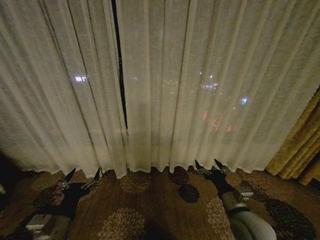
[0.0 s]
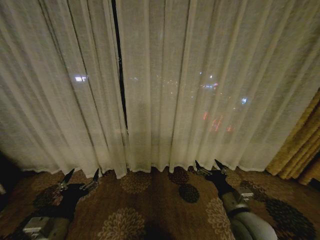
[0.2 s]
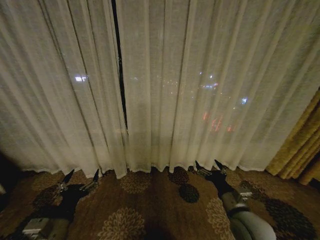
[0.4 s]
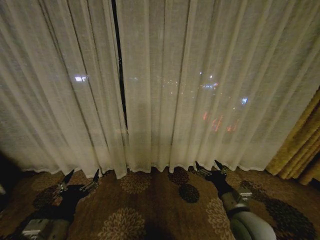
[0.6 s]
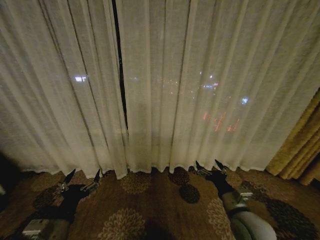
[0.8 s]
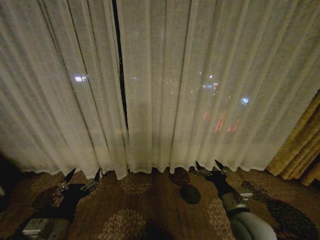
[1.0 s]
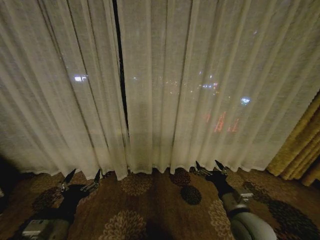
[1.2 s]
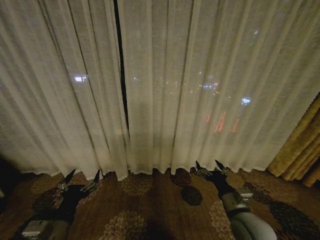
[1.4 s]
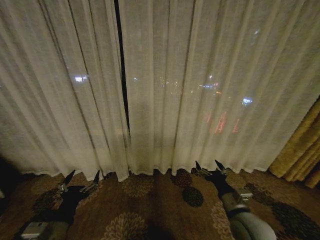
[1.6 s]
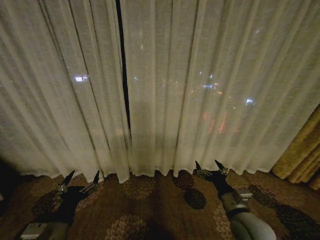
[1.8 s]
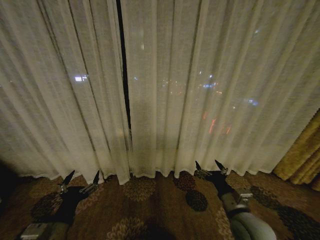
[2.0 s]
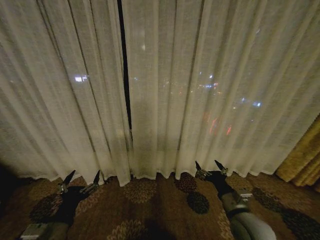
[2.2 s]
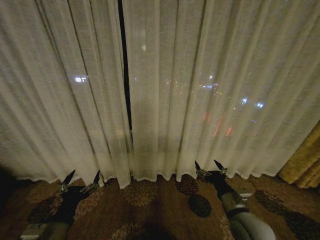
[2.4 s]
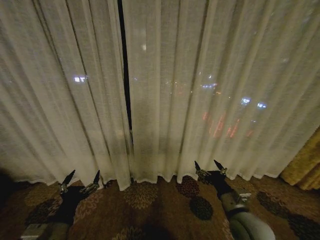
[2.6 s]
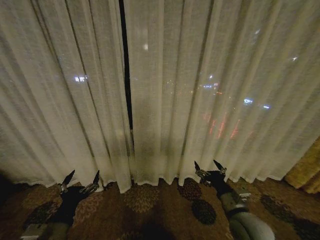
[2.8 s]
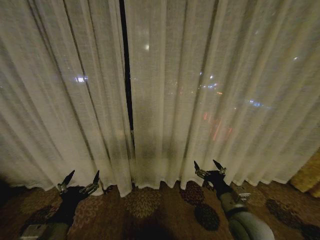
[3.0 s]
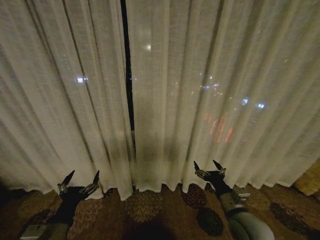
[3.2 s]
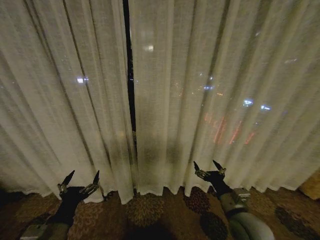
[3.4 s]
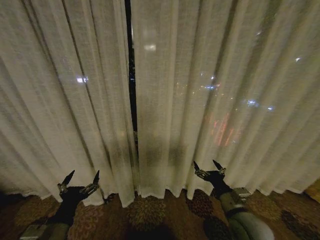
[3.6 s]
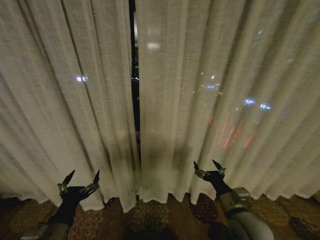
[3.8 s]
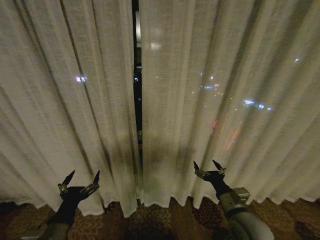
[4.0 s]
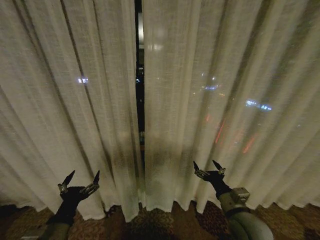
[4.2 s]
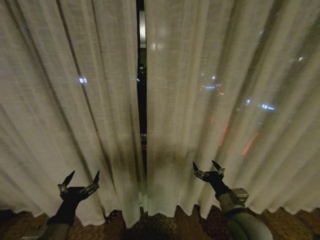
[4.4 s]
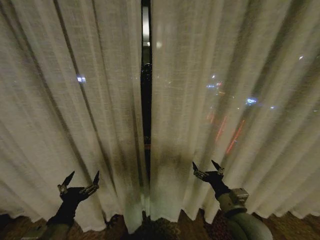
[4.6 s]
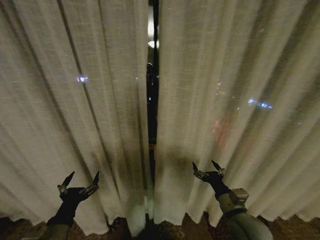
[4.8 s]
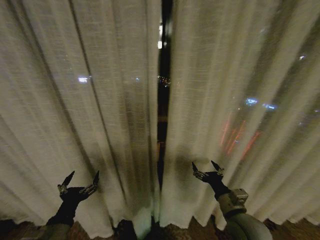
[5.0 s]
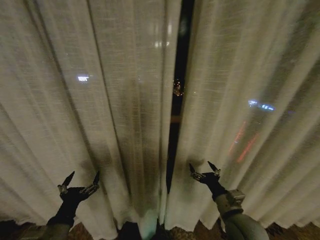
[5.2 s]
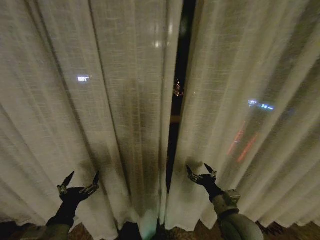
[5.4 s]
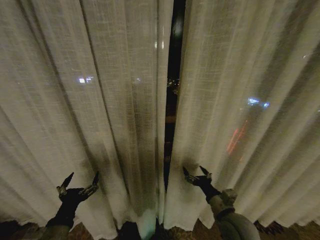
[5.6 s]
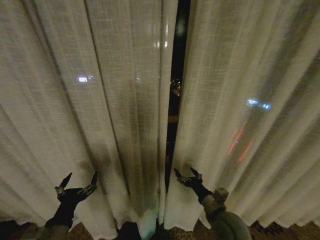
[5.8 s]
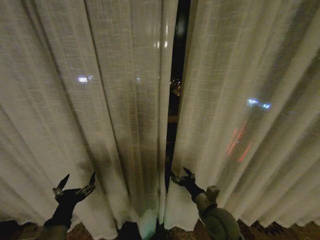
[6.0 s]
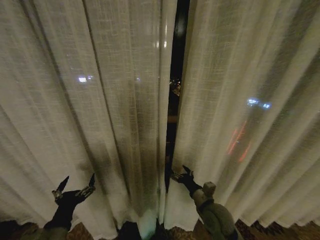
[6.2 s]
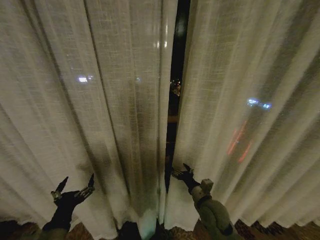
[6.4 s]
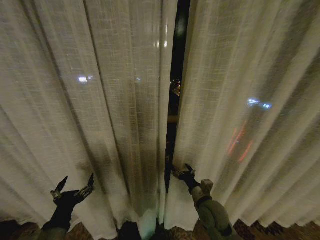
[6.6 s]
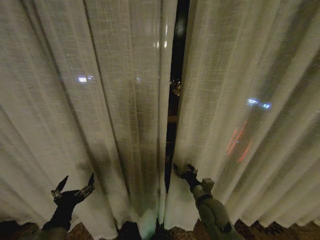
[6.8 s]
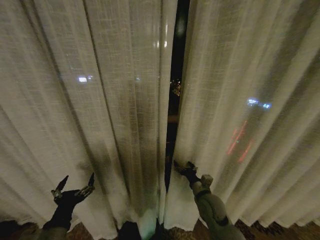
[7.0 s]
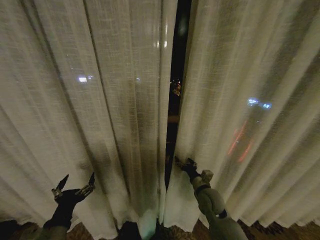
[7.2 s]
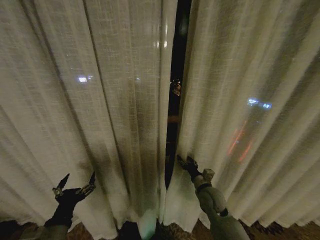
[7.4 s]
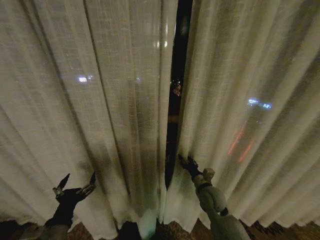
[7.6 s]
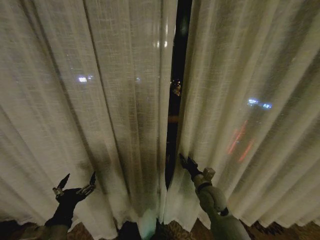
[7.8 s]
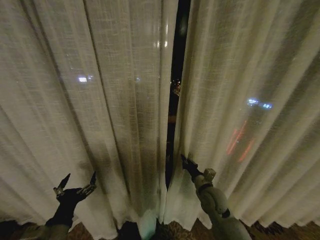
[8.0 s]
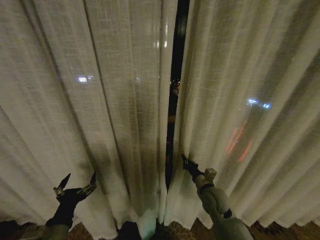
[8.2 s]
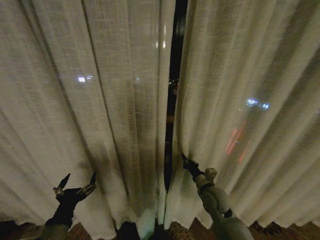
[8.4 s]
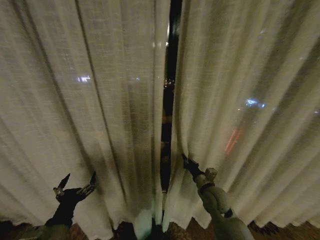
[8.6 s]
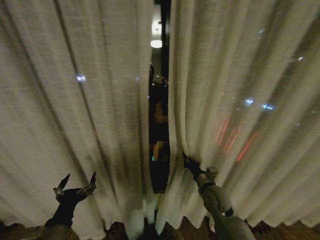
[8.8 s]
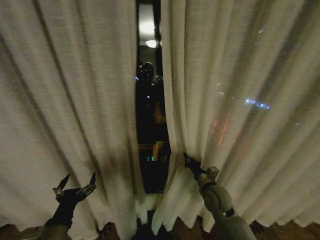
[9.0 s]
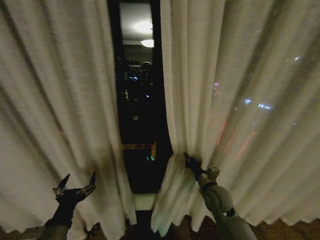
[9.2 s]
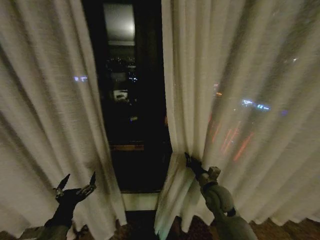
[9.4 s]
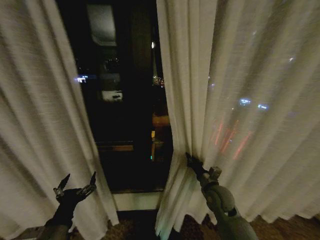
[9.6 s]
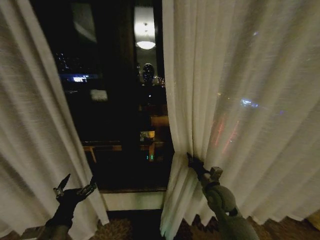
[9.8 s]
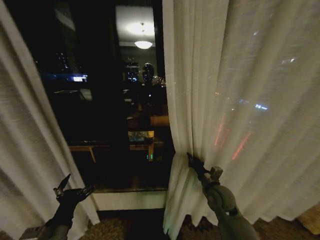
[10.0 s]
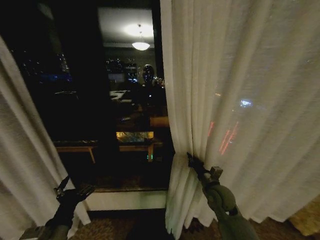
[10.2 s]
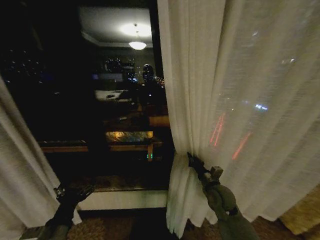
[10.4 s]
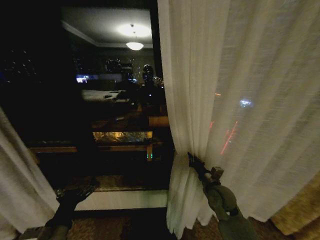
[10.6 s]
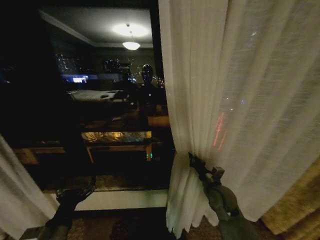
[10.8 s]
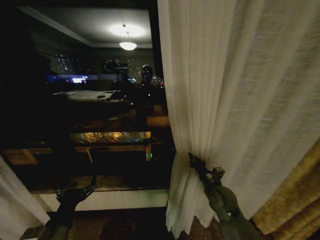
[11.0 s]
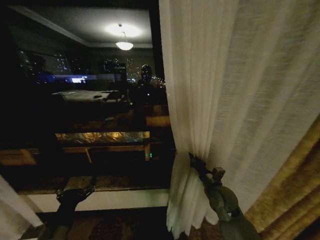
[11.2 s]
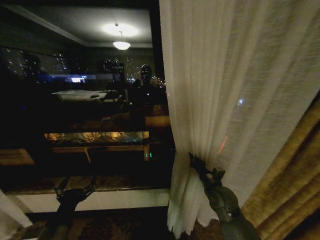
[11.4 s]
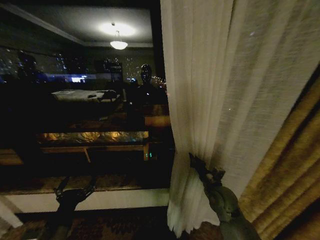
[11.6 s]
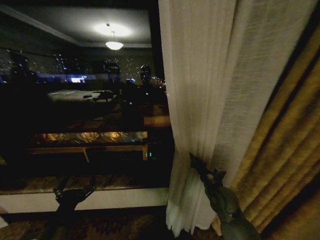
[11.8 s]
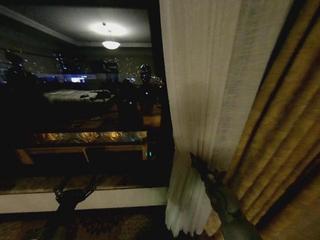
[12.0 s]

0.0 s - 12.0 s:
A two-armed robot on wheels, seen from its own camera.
Task of the whole recording: Open the curtains by pulling them apart, changing their state from closed to fully open.
1.6 s - 3.0 s: Both grippers stay put.
4.4 s - 6.0 s: The right gripper shifts by approximately 5 cm.
6.0 s - 7.6 s: The right gripper goes roughly 10 cm forward, and closes up.
7.6 s - 9.0 s: The right gripper closes.

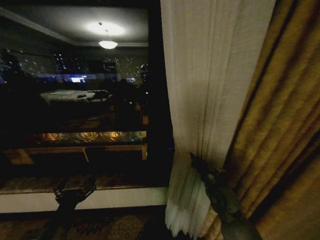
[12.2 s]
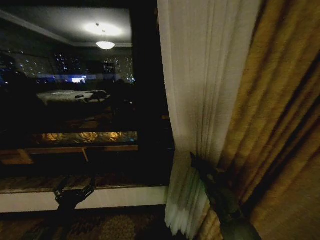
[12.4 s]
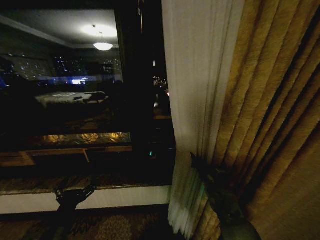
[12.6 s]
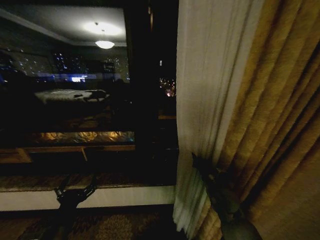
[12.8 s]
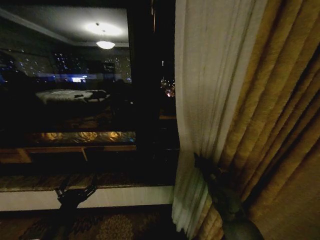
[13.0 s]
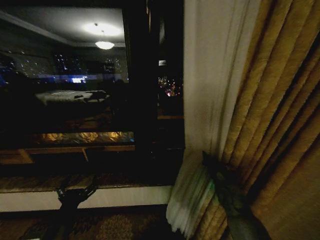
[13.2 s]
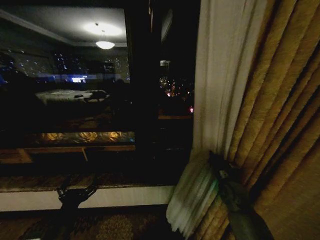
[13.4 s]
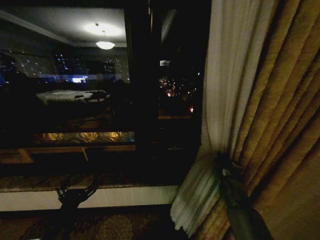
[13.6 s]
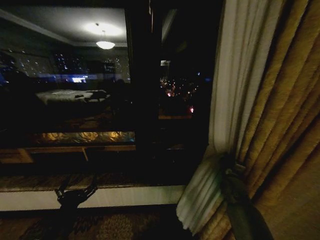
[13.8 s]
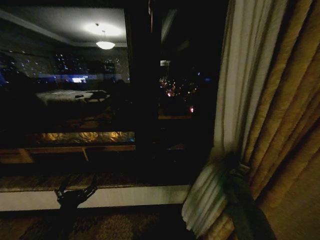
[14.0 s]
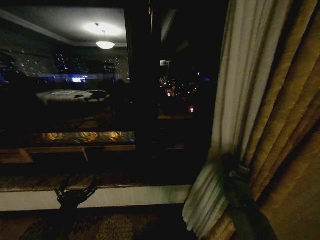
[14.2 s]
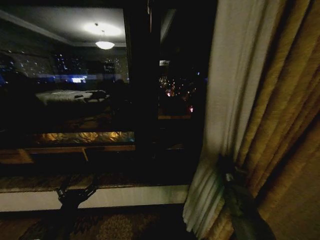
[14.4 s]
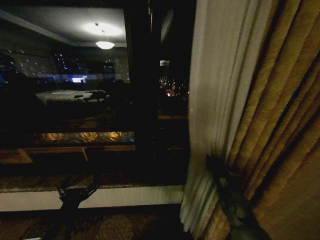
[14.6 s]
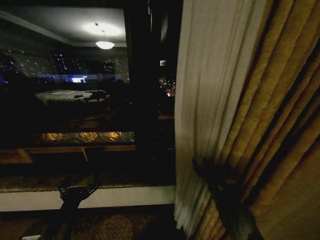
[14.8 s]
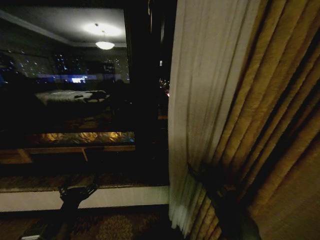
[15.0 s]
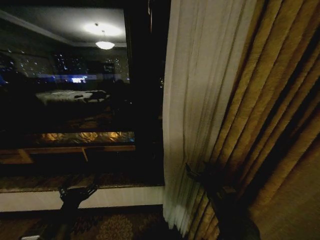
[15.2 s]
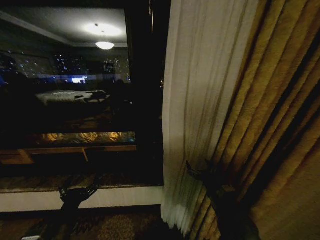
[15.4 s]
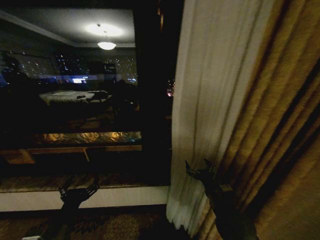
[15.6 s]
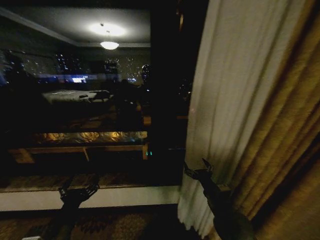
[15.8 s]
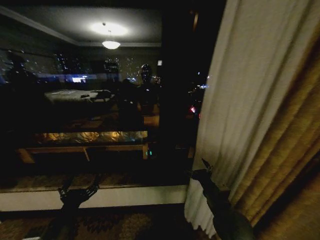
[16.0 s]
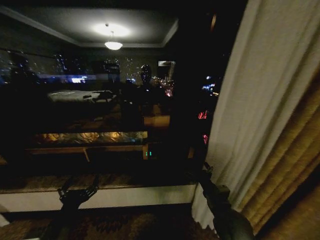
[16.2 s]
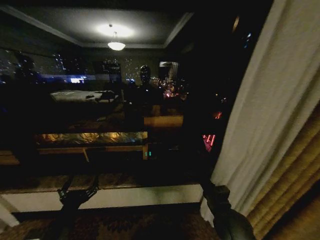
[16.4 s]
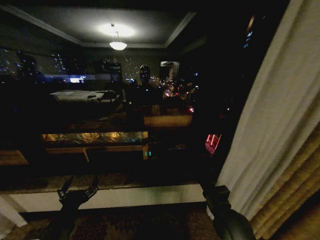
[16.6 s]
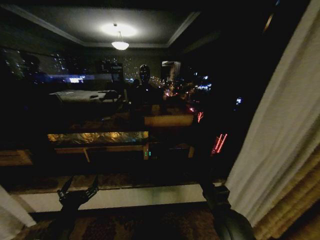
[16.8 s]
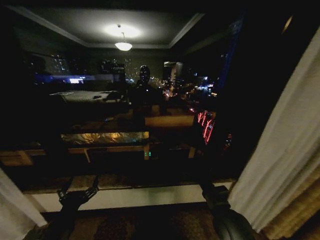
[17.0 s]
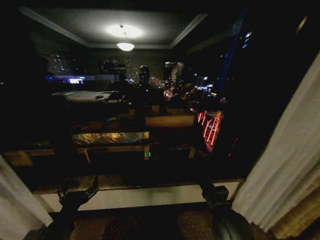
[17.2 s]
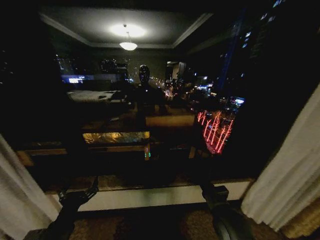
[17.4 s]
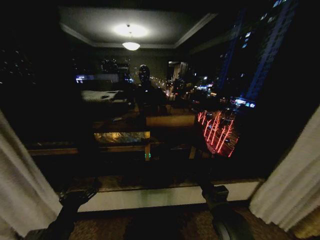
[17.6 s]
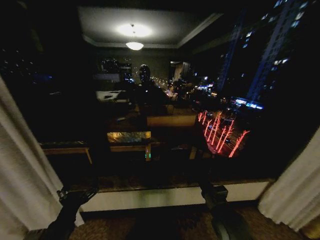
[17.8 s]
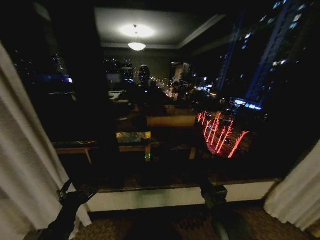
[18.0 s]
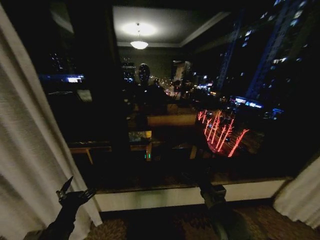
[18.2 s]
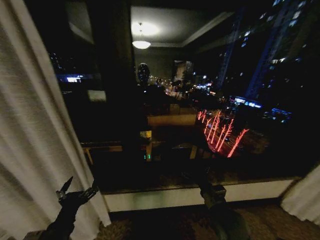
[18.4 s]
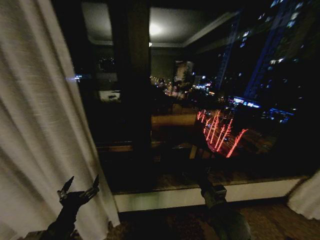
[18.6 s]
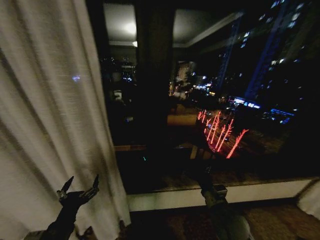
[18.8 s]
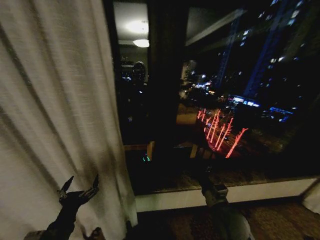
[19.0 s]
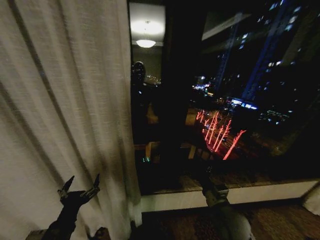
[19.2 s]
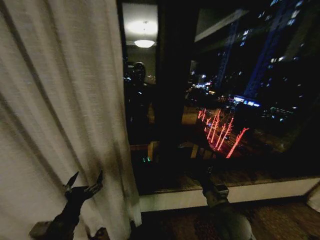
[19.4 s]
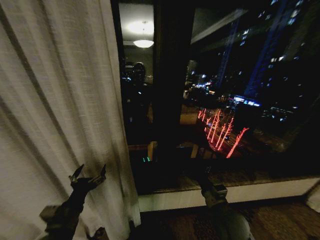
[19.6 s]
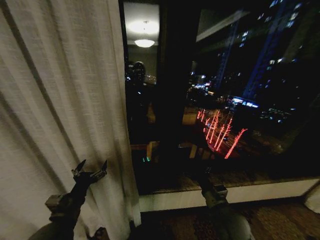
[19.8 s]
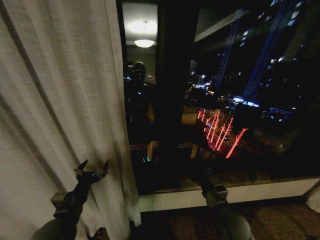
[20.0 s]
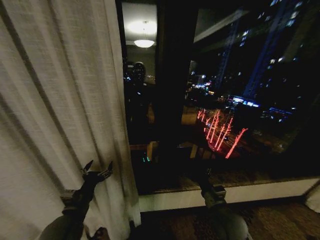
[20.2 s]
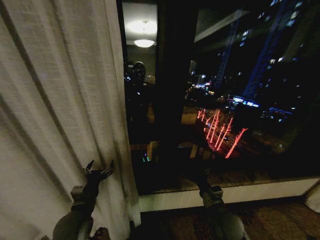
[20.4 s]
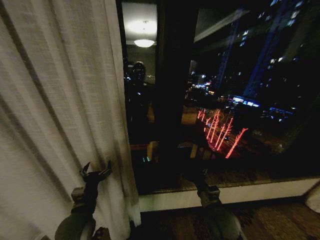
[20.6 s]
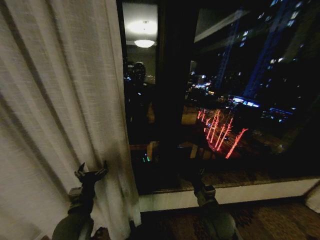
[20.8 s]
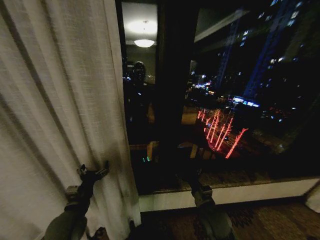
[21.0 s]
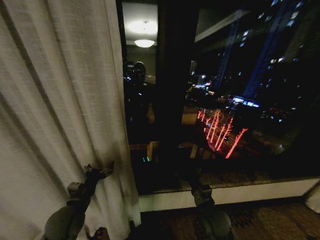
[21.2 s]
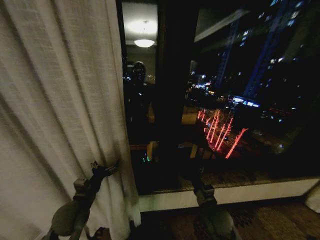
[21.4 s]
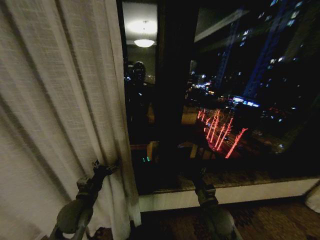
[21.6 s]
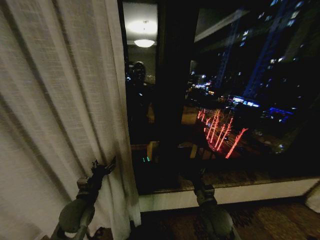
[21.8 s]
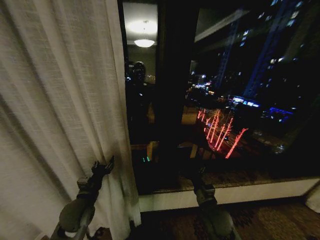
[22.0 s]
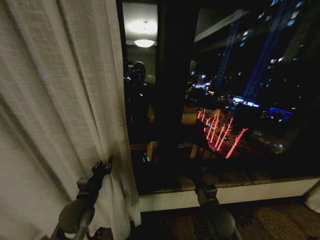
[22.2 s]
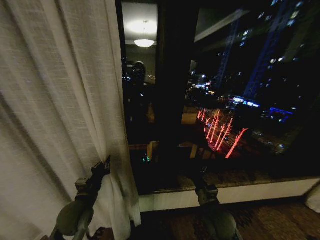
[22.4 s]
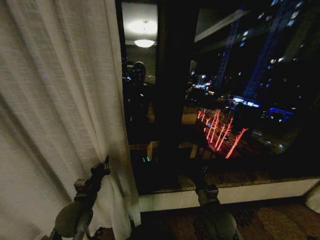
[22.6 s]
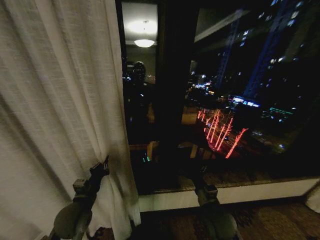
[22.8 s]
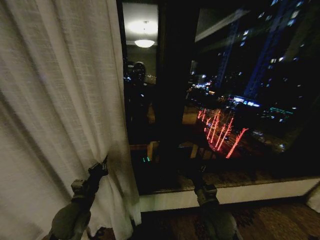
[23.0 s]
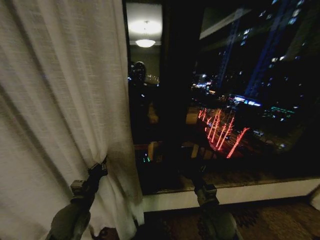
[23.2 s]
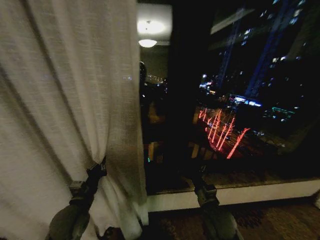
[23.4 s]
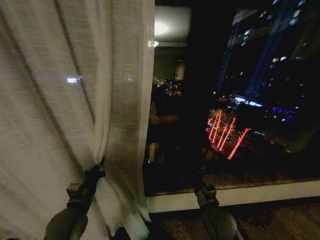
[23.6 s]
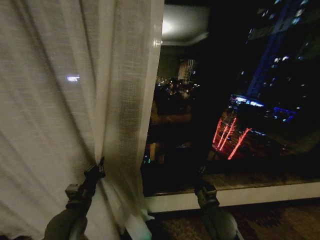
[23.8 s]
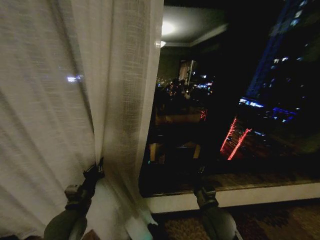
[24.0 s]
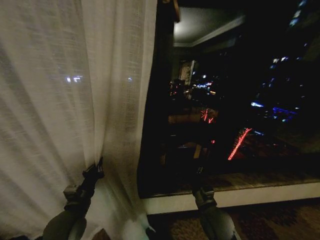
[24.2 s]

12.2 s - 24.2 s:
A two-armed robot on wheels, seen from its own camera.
Task of the whole recording: Open the curtains by pulling them apart, changing their state from closed to fully open.
12.2 s - 13.8 s: The right gripper goes some 10 cm to the right and forward.
13.8 s - 15.2 s: The right gripper moves backward and to the left, some 20 cm, and opens.
18.2 s - 19.8 s: The left gripper shifts roughly 5 cm forward.
19.8 s - 21.2 s: The left gripper is displaced forward by roughly 5 cm; the right gripper changes place by roughly 5 cm.
21.2 s - 22.6 s: The left gripper closes up.
